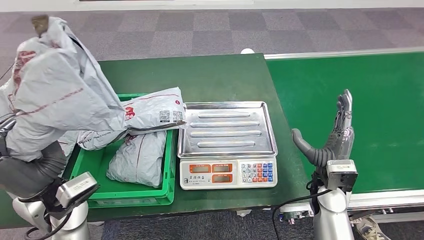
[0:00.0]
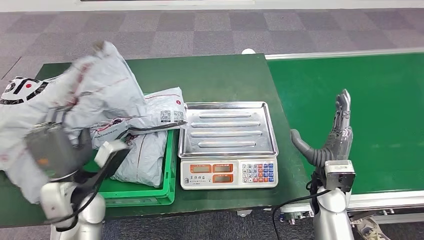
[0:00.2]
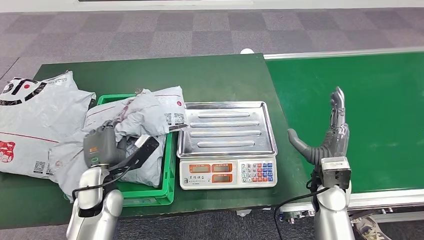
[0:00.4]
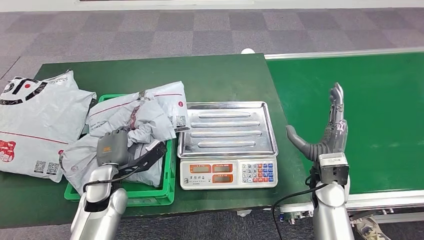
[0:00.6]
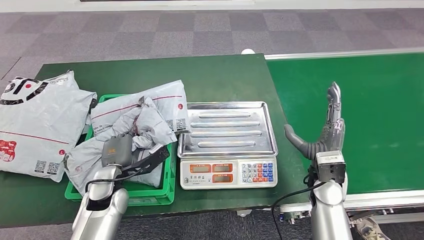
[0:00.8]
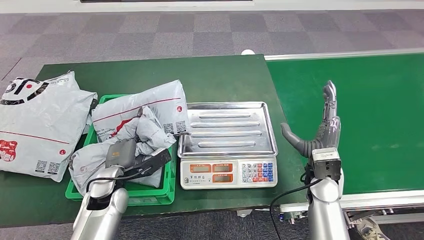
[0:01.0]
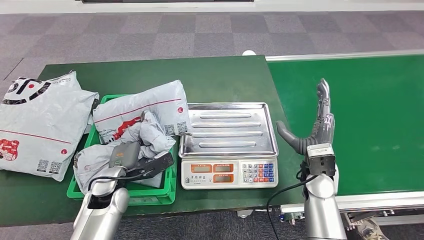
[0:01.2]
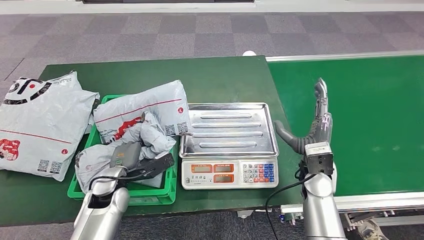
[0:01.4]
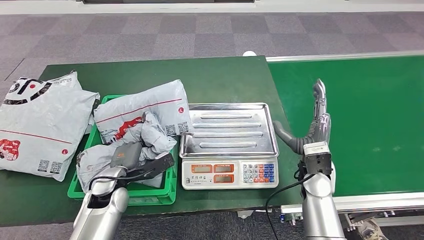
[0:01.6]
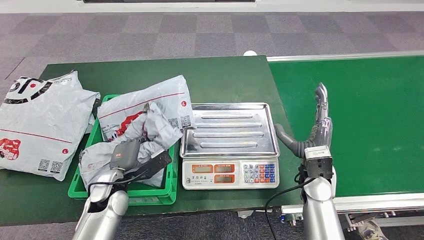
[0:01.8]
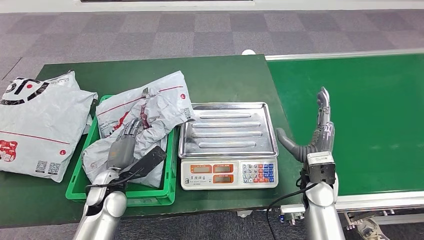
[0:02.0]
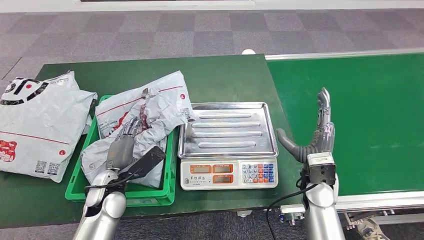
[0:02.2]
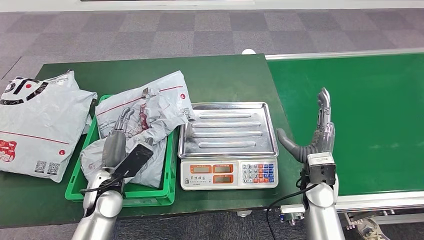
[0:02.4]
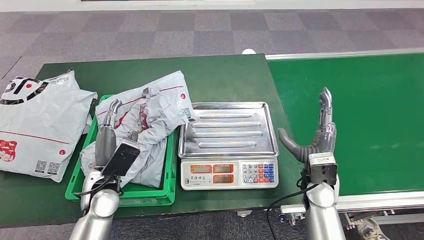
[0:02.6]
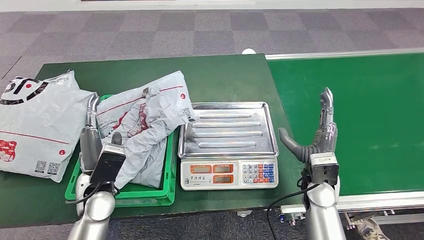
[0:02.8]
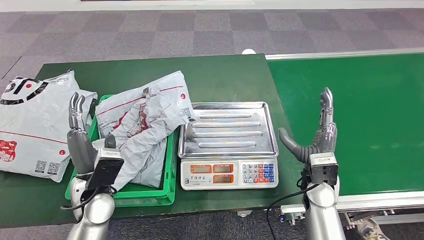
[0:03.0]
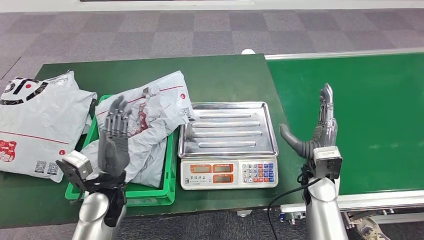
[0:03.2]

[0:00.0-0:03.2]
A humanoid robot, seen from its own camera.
Step, 0:00.0 to 0:03.2: Place the parcel into the delivery box.
